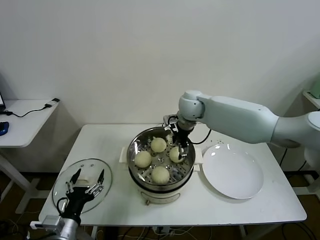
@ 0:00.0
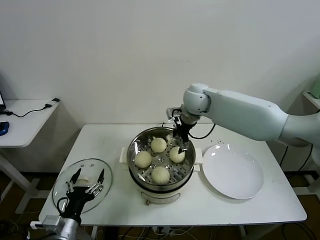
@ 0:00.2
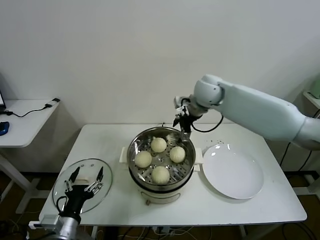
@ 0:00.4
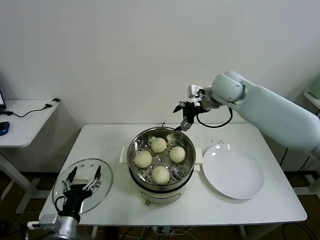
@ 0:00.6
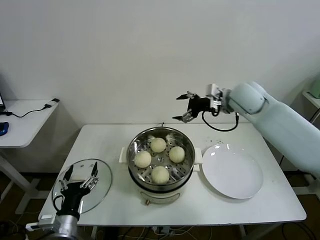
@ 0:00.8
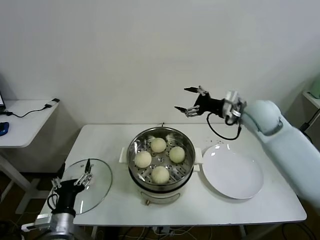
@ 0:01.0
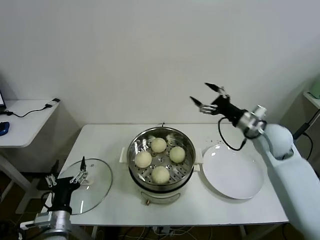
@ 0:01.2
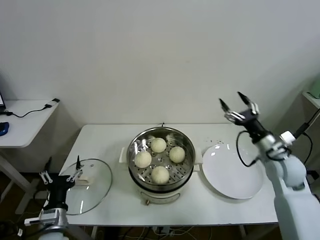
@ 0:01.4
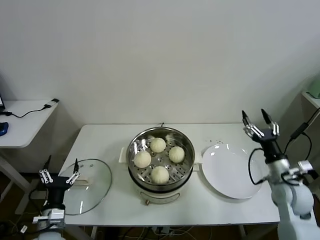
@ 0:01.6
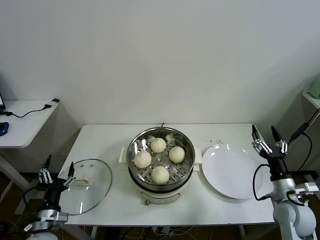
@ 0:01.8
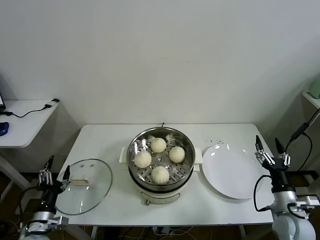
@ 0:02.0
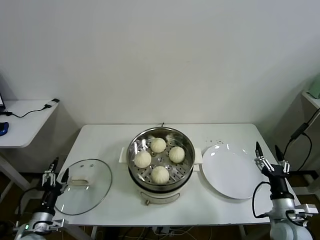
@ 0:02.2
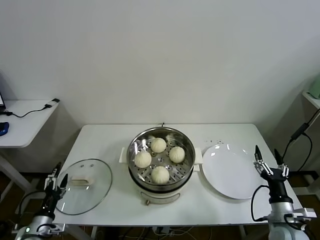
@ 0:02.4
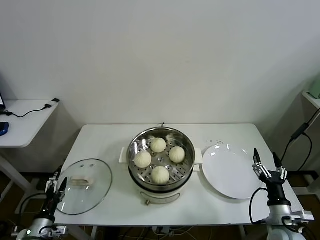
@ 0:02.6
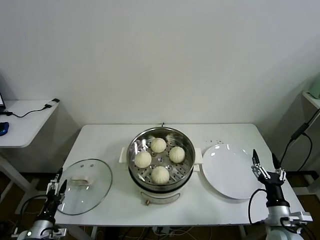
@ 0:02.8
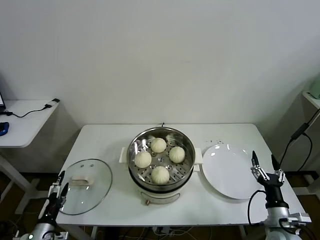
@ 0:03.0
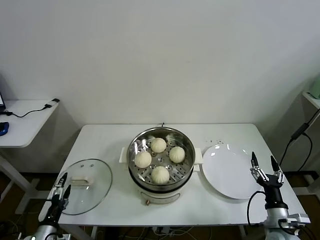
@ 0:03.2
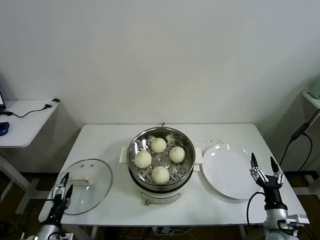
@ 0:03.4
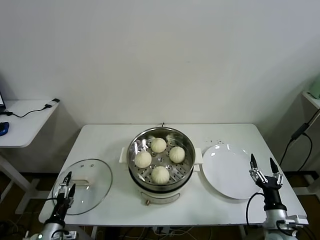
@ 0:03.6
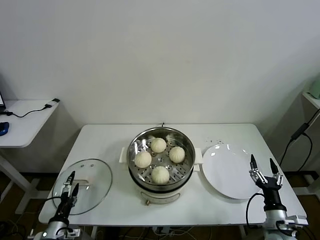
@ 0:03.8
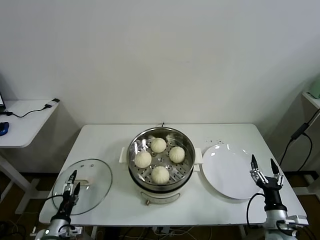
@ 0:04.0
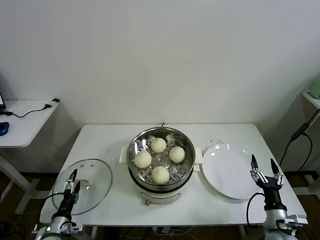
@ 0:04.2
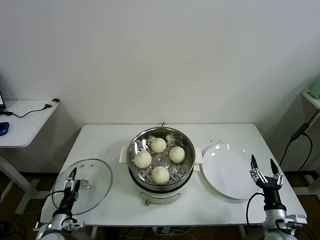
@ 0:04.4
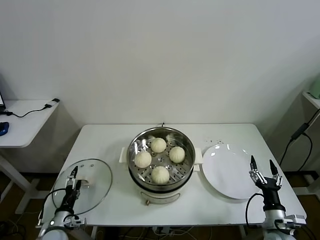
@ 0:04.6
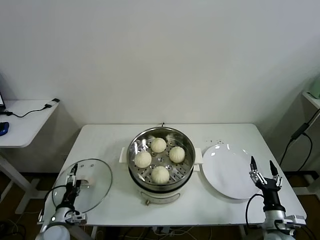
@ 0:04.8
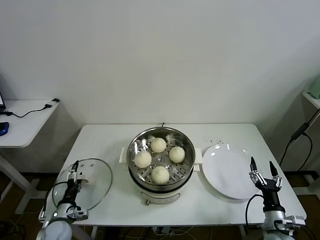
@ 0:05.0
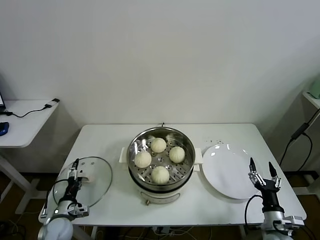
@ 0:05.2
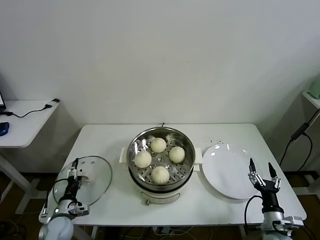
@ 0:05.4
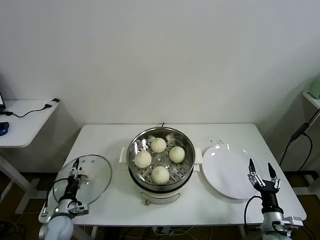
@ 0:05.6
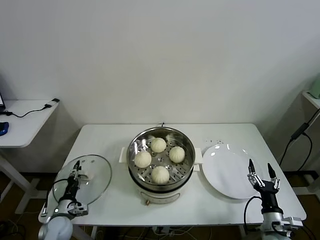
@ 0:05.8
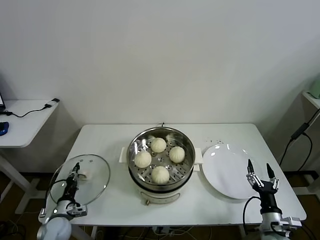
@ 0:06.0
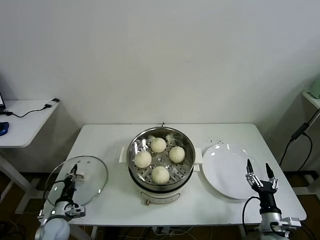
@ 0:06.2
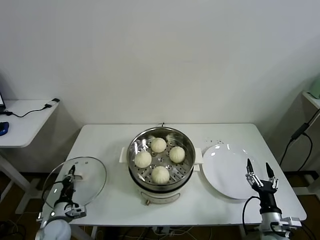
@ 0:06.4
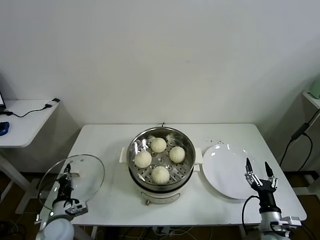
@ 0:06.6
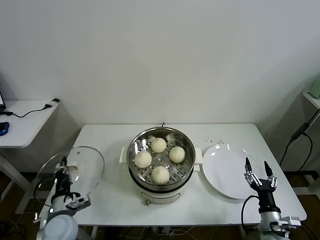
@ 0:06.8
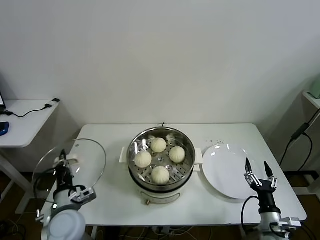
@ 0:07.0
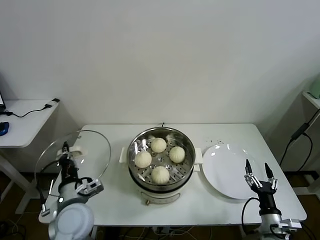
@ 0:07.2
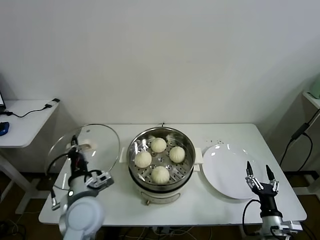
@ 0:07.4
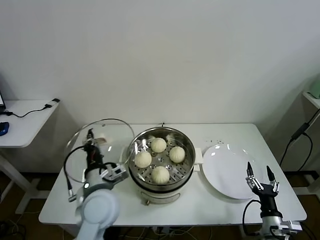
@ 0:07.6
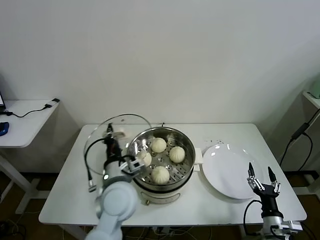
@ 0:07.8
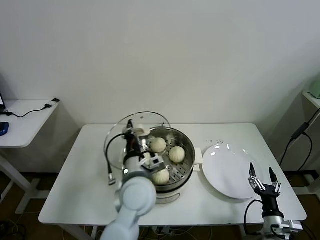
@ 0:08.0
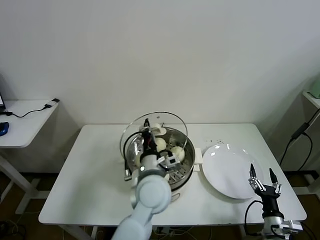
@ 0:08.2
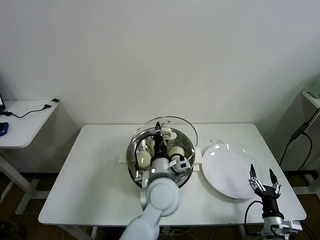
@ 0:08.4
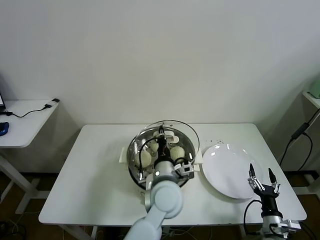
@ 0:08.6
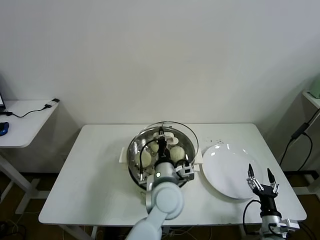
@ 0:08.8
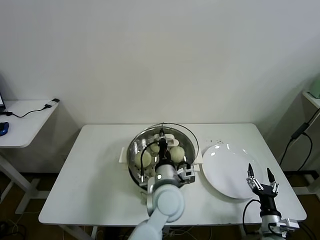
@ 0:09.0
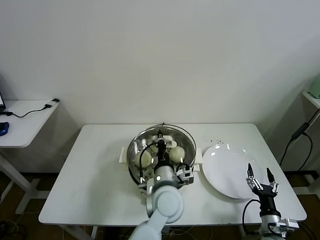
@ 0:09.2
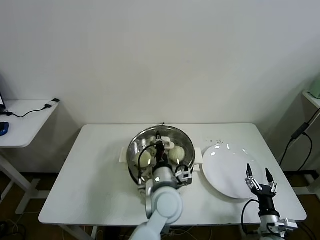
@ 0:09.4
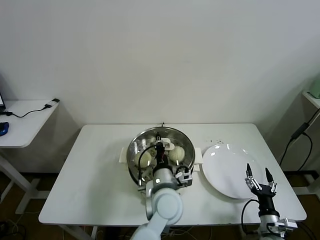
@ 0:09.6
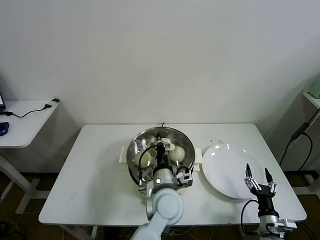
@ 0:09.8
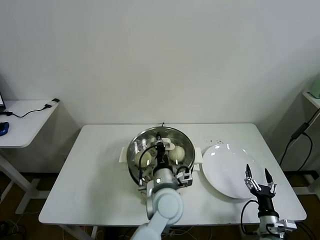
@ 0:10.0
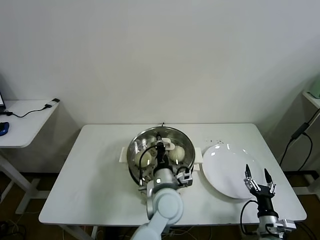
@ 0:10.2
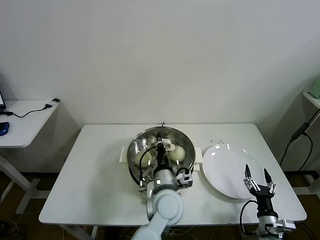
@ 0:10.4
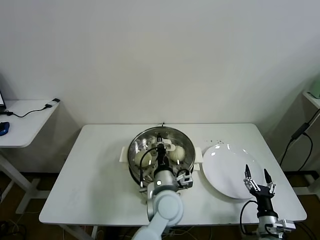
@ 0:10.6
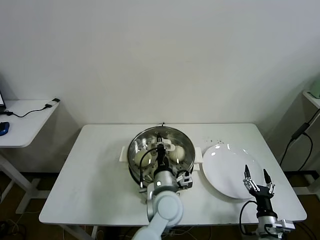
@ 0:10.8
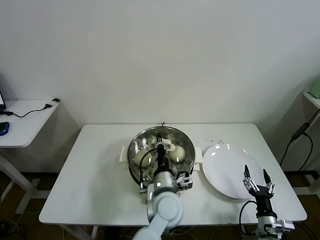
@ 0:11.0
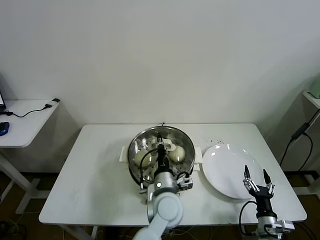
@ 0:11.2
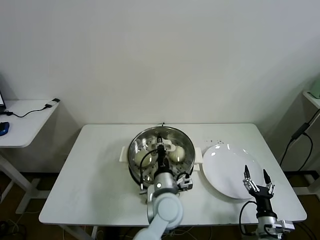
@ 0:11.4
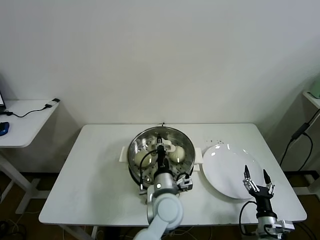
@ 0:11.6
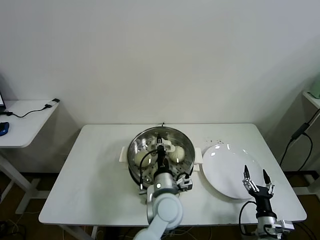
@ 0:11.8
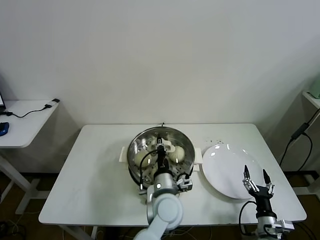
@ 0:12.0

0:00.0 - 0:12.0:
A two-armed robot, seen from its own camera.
Task of the whole recording: take steamed baozi put them in steamer then cover it.
Step, 0:00.2 - 0:06.2: Grasp the pot lid with left gripper.
0:00.0 - 0:01.6: The left gripper changes place by some 5 cm. The right gripper moves to the right, backward and downward, some 40 cm.
0:01.6 - 0:03.0: The left gripper goes about 10 cm to the left and downward, while the right gripper is displaced backward and downward by some 15 cm.
0:03.0 - 0:04.4: The left gripper shifts by some 5 cm.
0:04.4 - 0:06.0: The left gripper goes roughly 5 cm forward, and closes its fingers.
0:06.0 - 0:07.6: The left gripper heads upward and to the right, covering approximately 30 cm.
0:07.6 - 0:09.0: The left gripper travels to the right by about 20 cm.
0:09.0 - 0:12.0: The grippers make only small movements.

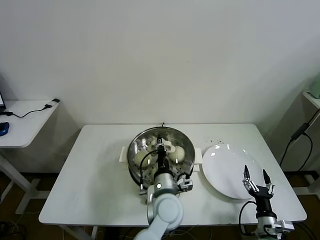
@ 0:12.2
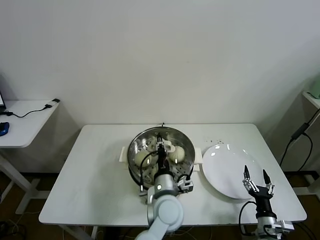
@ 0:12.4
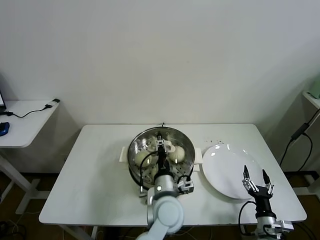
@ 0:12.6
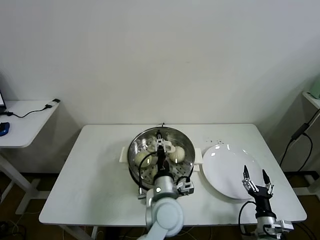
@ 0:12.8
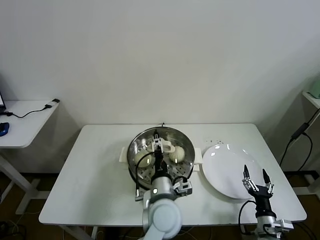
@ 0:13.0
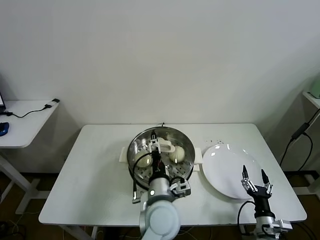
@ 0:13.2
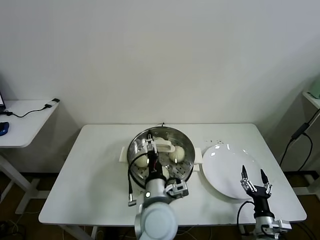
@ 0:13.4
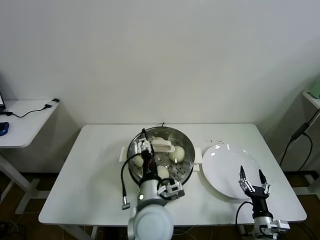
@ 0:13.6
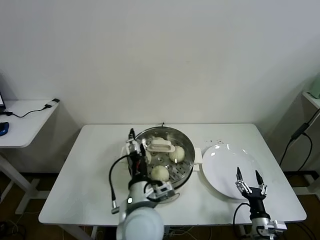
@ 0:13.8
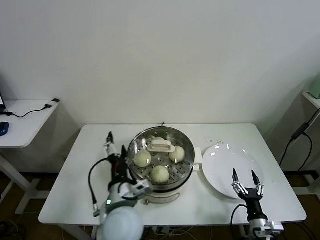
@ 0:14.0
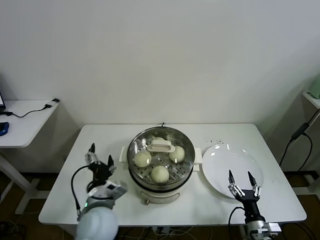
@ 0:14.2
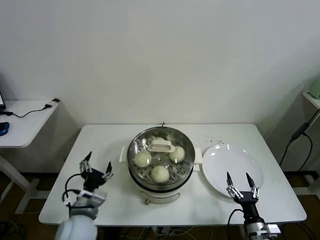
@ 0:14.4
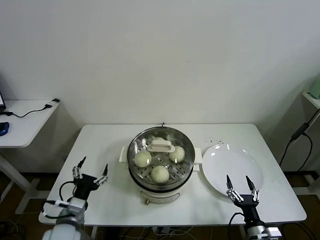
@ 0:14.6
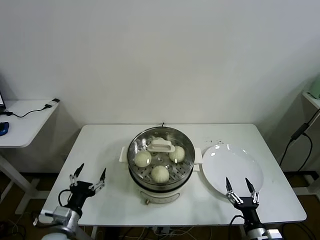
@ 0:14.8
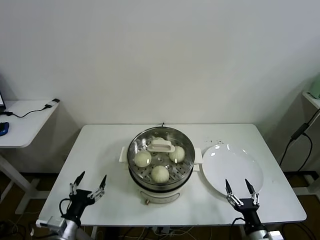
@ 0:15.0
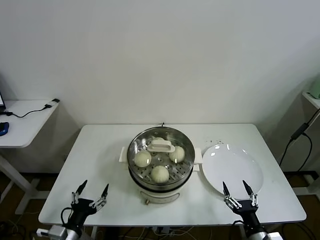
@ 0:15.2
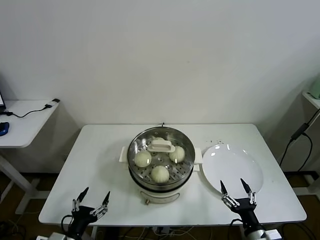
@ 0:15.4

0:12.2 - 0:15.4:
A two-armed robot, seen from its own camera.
Task of the whole recording: take steamed baozi put them in steamer then cover it.
0:12.2 - 0:13.8: The left gripper shifts some 10 cm upward and backward, and opens up.
0:13.8 - 0:15.4: The left gripper goes approximately 30 cm to the left and downward. Meanwhile the right gripper moves upward and backward, approximately 10 cm.
